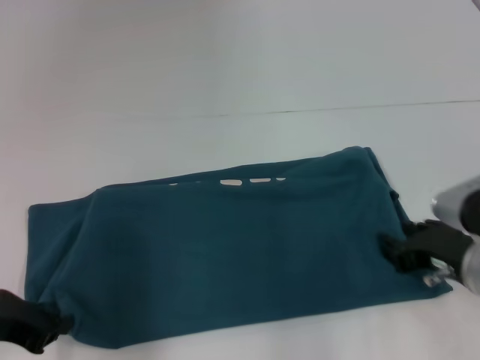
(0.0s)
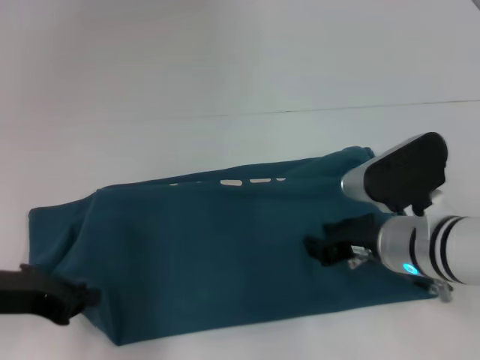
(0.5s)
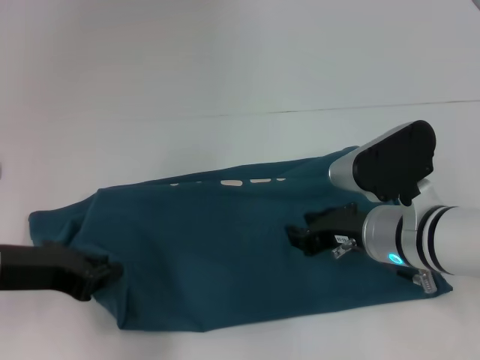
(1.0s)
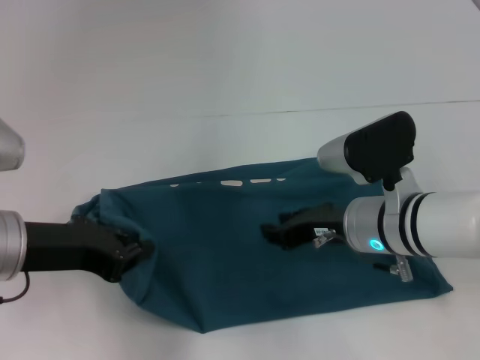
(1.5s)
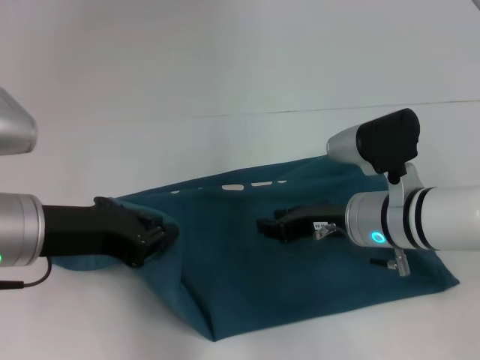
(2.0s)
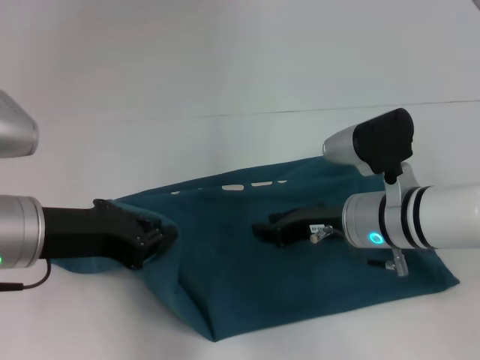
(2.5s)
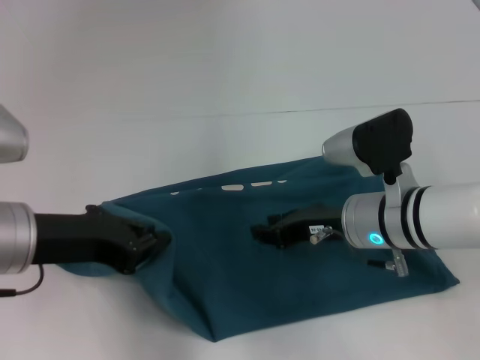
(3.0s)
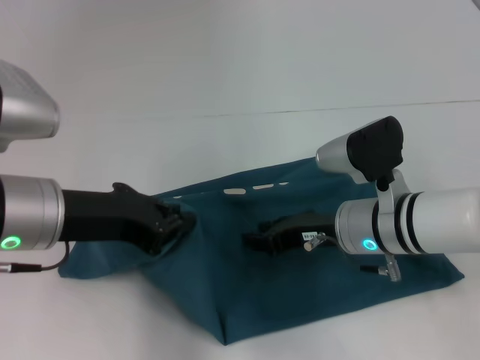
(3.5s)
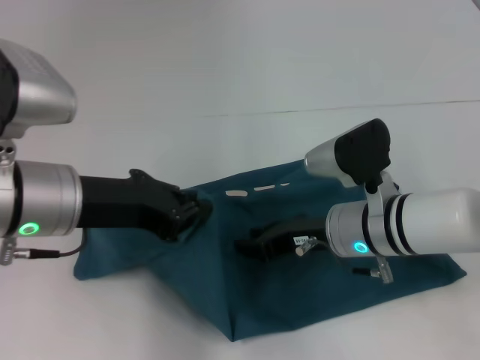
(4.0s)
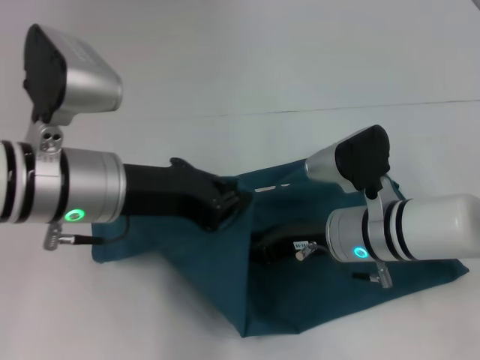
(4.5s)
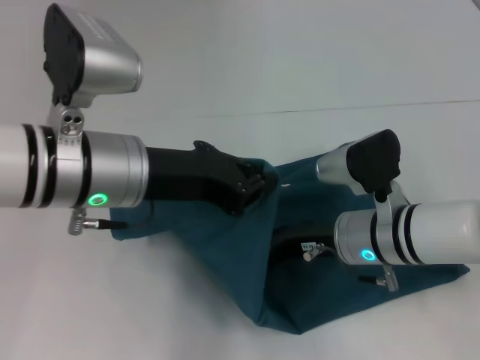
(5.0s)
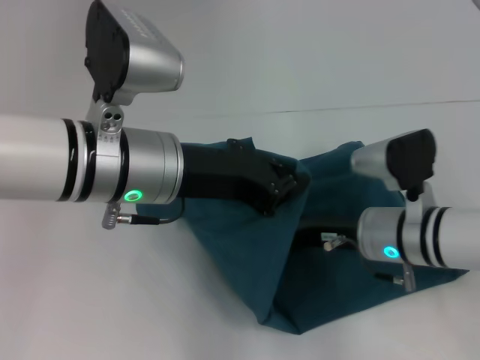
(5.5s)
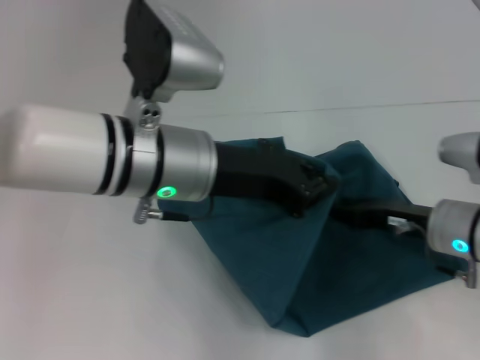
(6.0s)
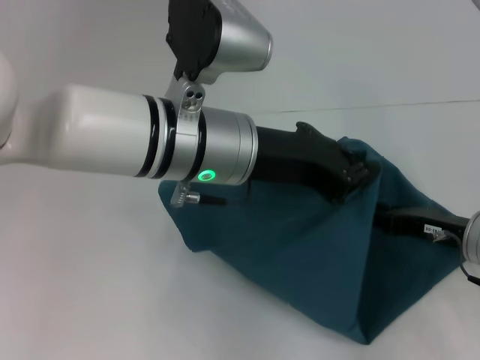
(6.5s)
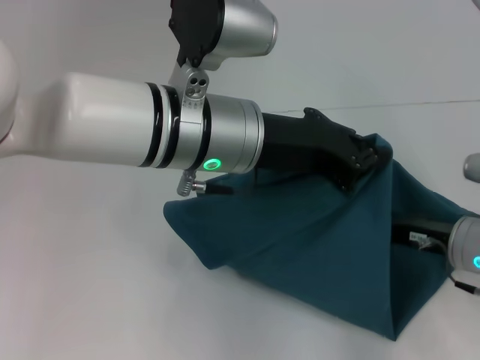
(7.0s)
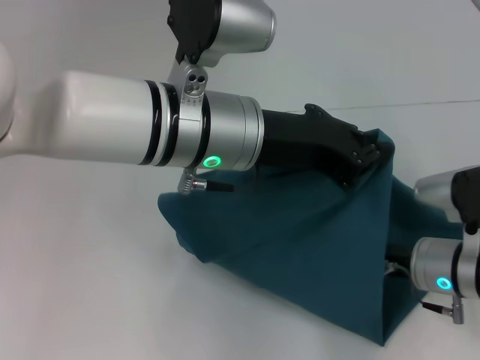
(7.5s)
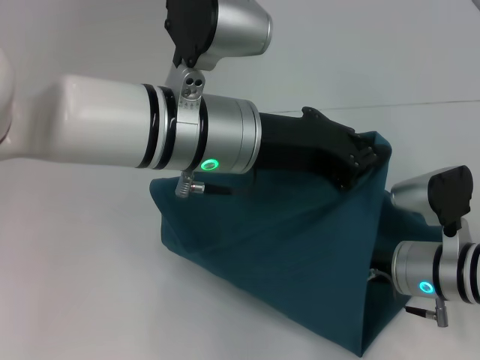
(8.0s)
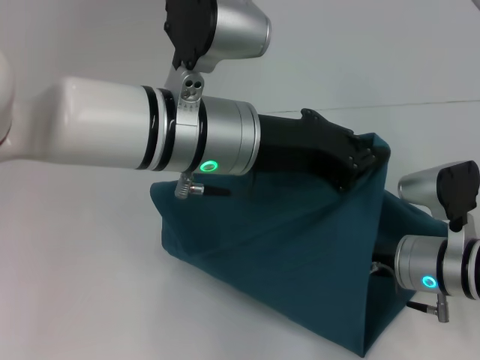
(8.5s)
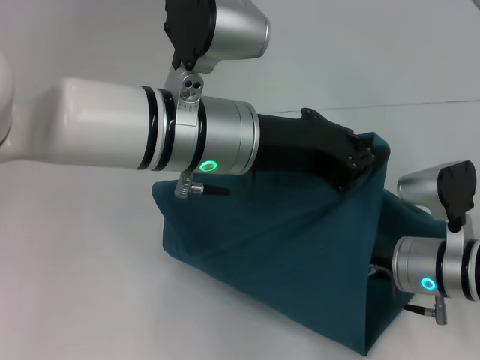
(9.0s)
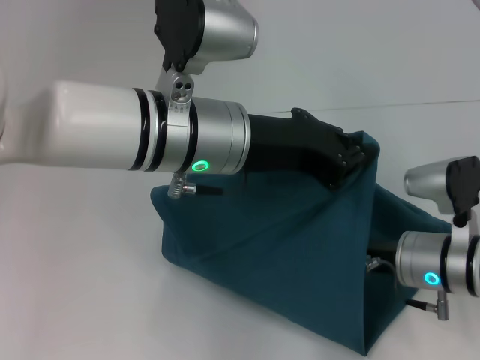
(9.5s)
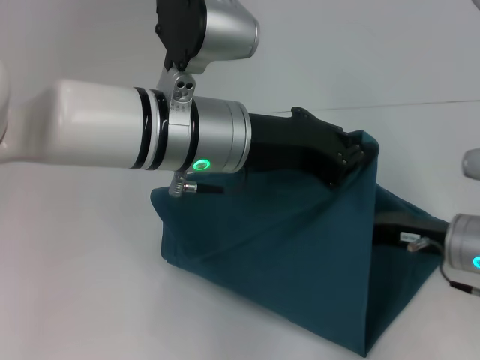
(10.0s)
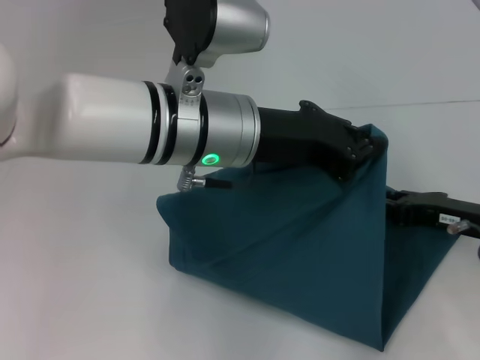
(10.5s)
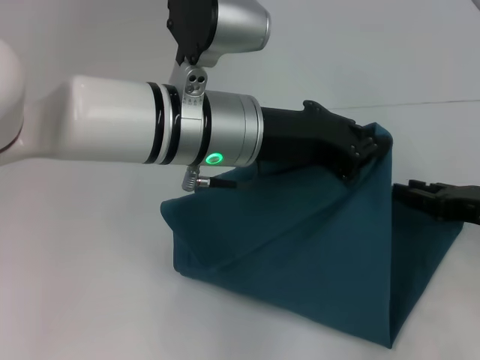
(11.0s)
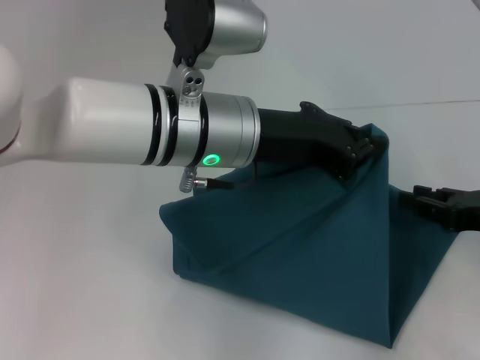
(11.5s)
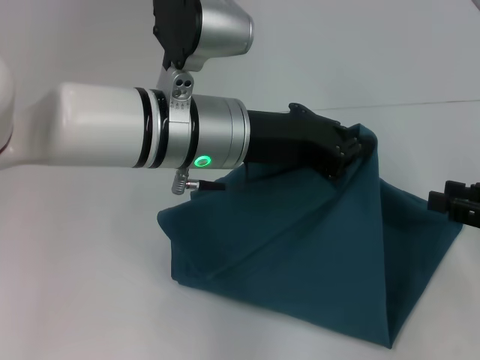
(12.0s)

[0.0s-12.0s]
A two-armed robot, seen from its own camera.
Step, 0.0s to 10.0s: Press the middle of the clothes with your right hand.
0.0s to 2.0s: The left gripper is displaced to the right and upward by some 10 cm; the right gripper travels forward and to the left by roughly 10 cm.
4.0s to 6.0s: The two grippers go about 10 cm to the right.
8.0s to 10.0s: The right gripper ends up roughly 5 cm from where it was.
10.0s to 12.0s: The right gripper goes some 15 cm to the right, upward and backward.

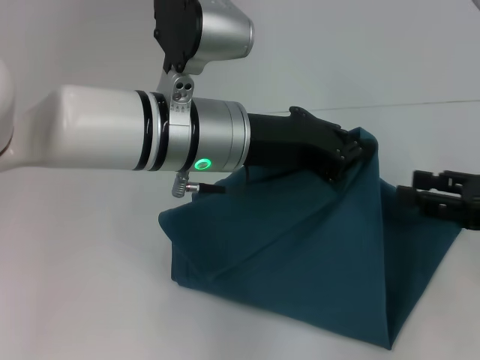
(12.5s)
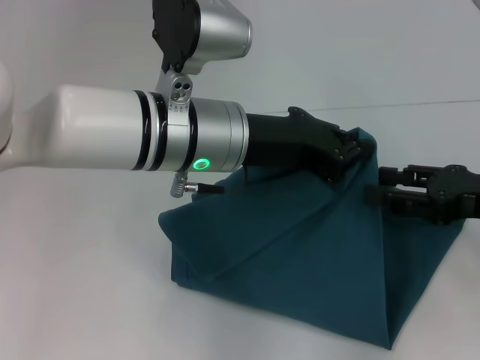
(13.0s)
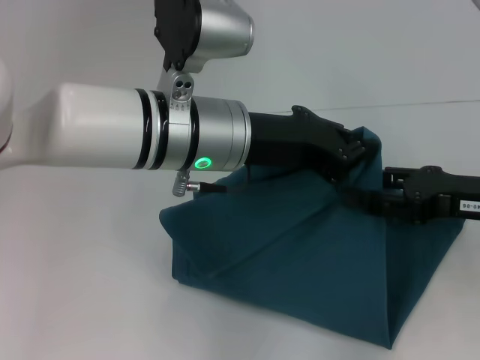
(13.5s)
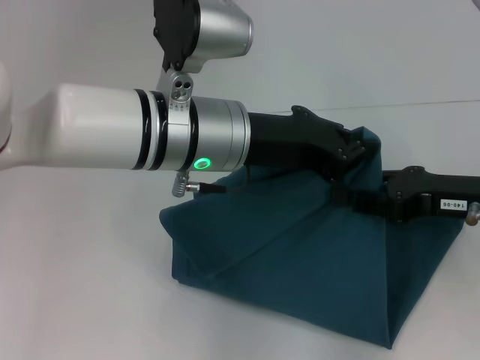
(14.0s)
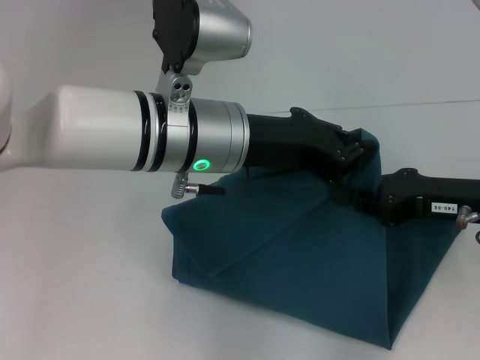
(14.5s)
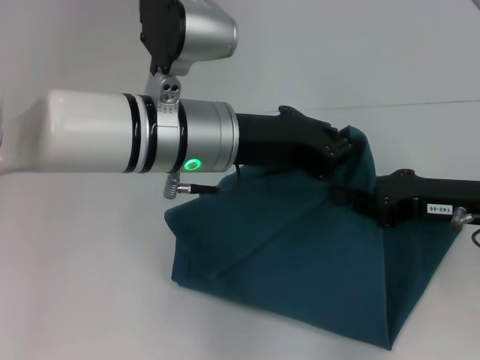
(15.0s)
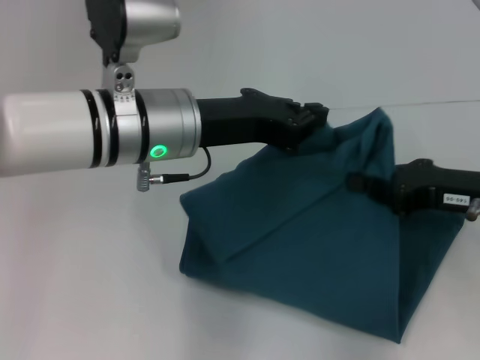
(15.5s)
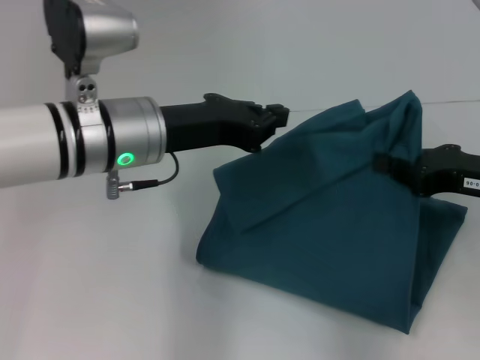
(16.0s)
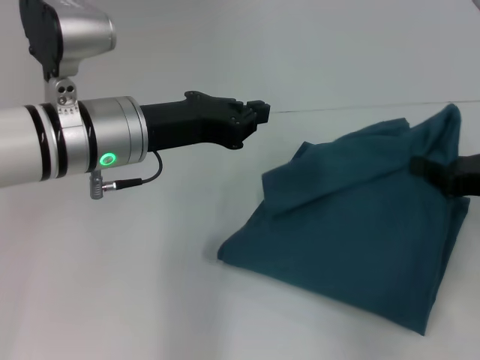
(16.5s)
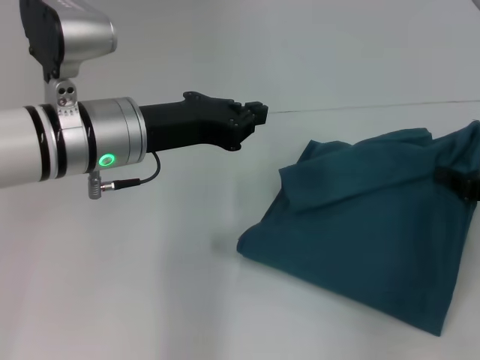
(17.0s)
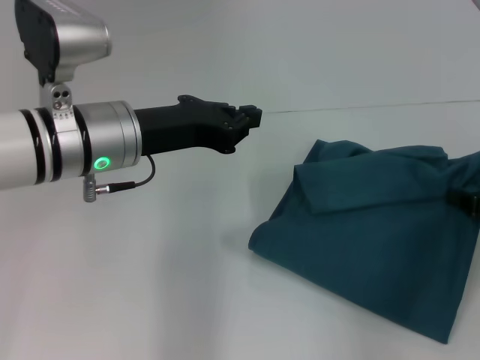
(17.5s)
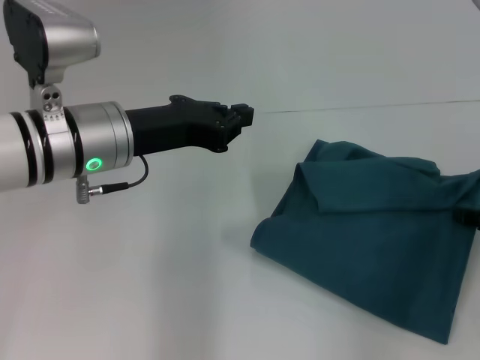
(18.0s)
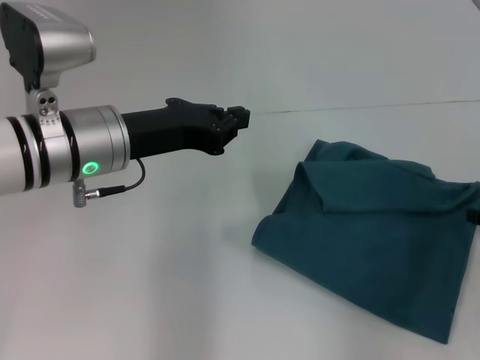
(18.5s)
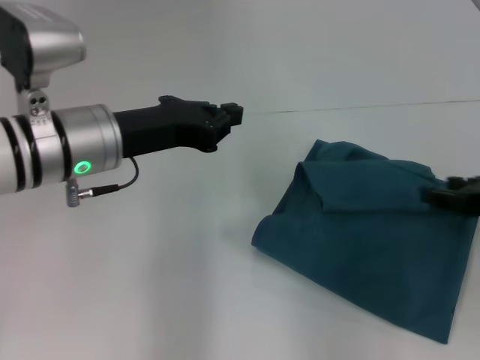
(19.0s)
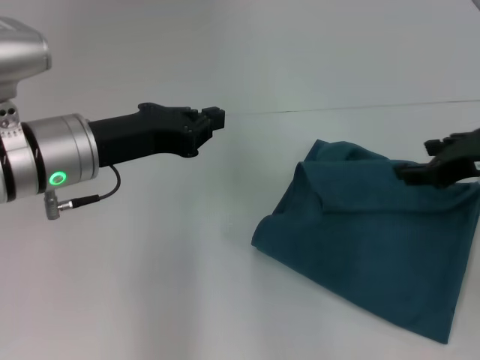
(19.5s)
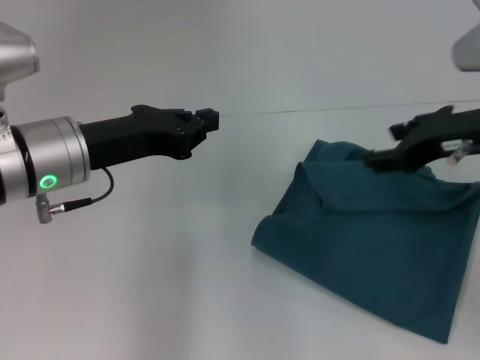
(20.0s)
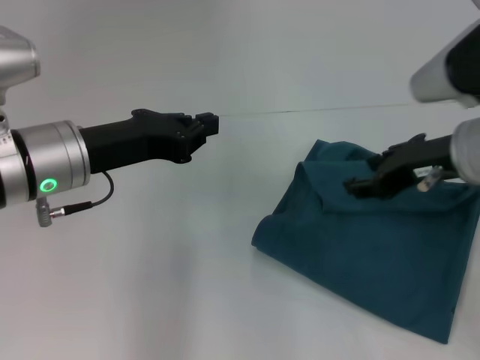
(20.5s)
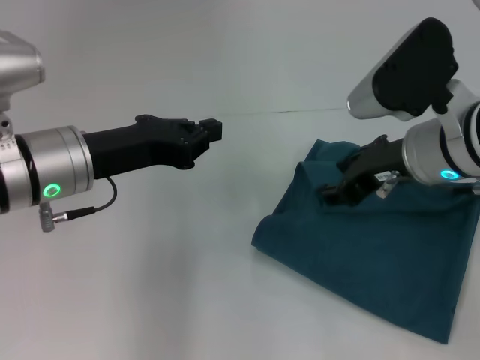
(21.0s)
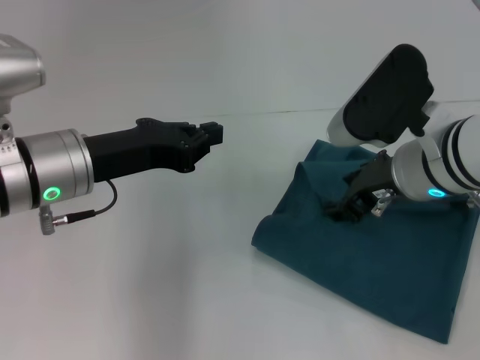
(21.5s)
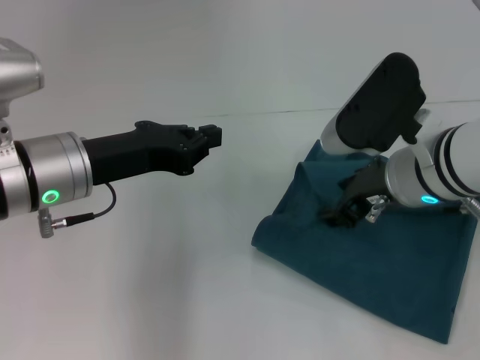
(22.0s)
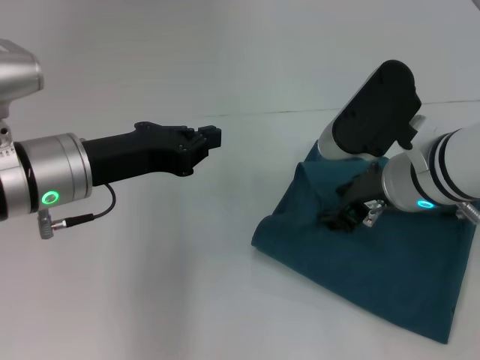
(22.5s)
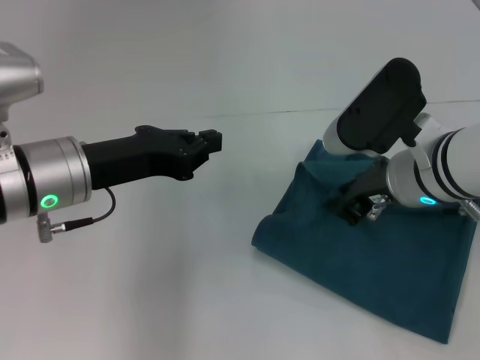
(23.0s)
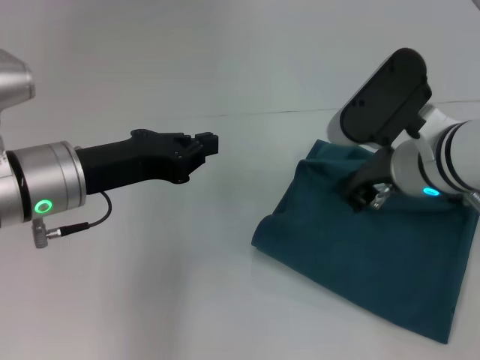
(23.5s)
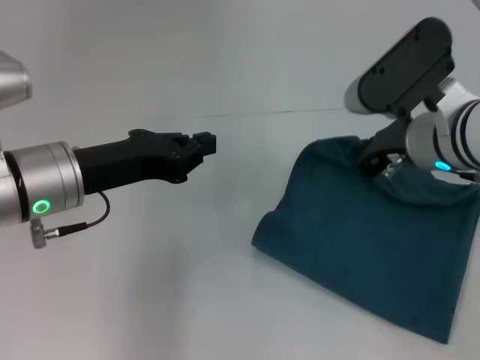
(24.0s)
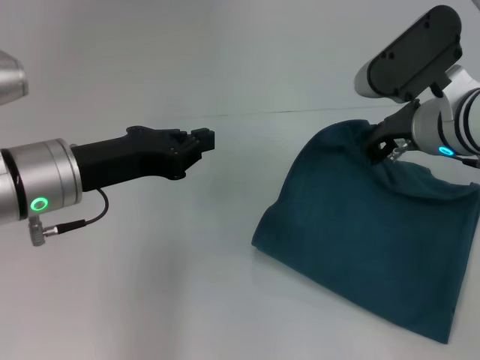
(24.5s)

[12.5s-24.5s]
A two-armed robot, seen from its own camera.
Step, 12.5s to 15.0s: Fold the clothes to the left.
12.5s to 14.5s: The right gripper goes about 5 cm to the left, and closes up.
14.5s to 16.5s: The left gripper travels to the left by roughly 10 cm.
16.5s to 18.5s: The right gripper opens its fingers.
18.5s to 20.5s: The right gripper goes some 15 cm to the left, upward and forward.
20.5s to 22.5s: The right gripper travels to the left by about 5 cm.
22.5s to 24.5s: The right gripper moves approximately 5 cm, and closes up.

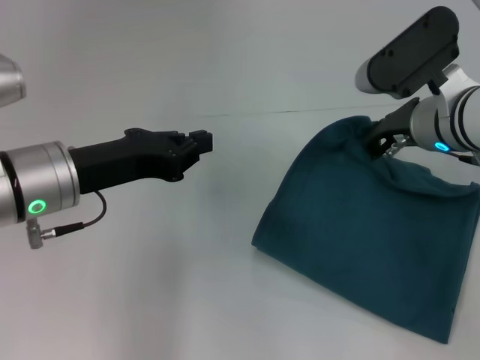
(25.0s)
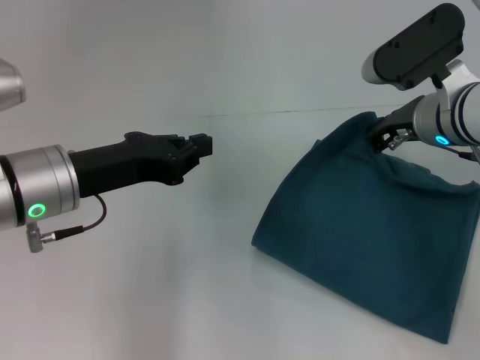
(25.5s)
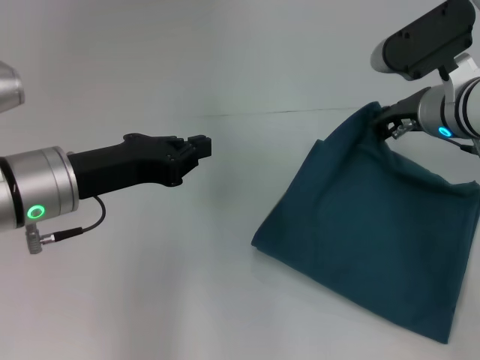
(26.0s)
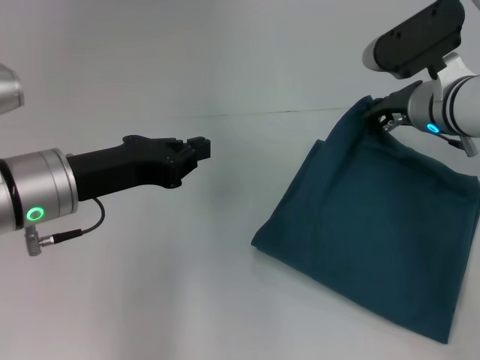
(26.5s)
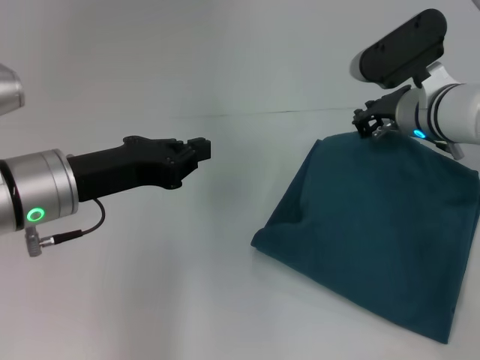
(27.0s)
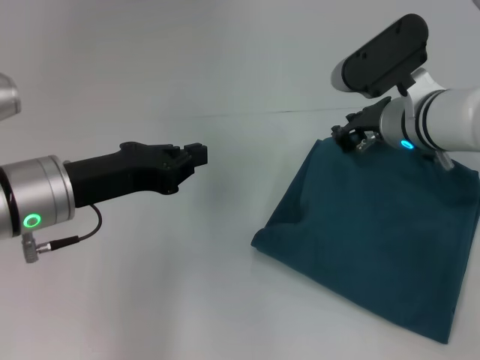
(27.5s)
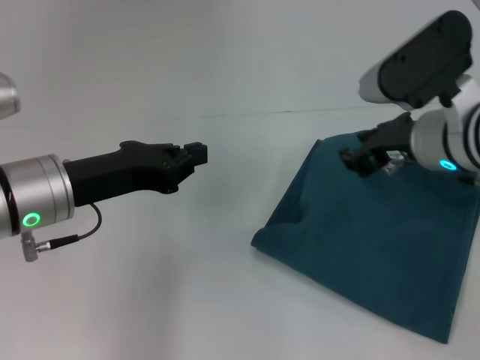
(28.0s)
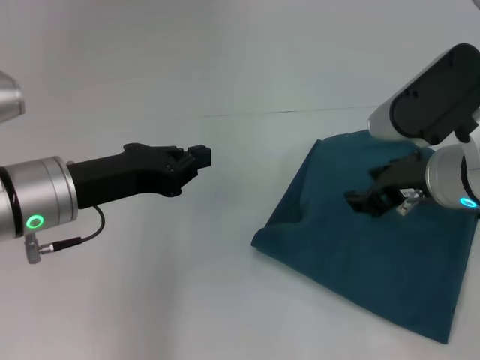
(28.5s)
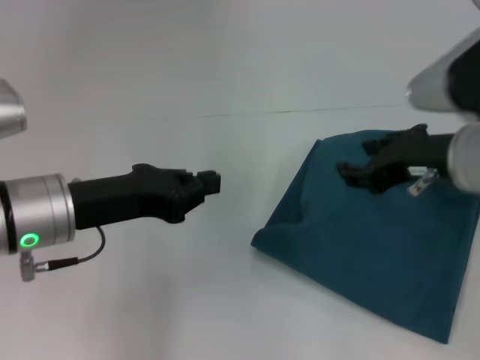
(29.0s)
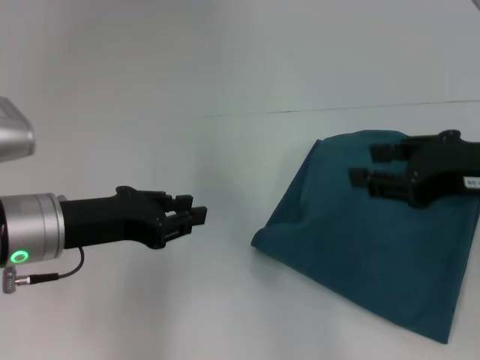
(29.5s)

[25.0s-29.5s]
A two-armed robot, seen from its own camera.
25.0s to 27.0s: The right gripper shifts by roughly 5 cm.
27.0s to 29.5s: The right gripper heads backward and upward, covering some 20 cm, and opens.
